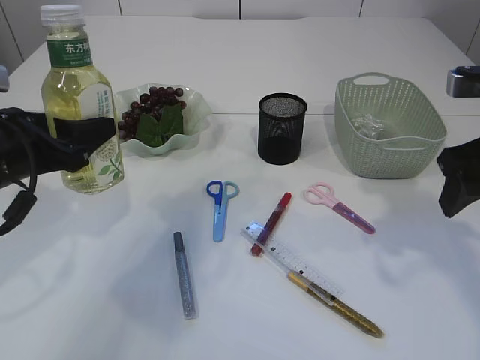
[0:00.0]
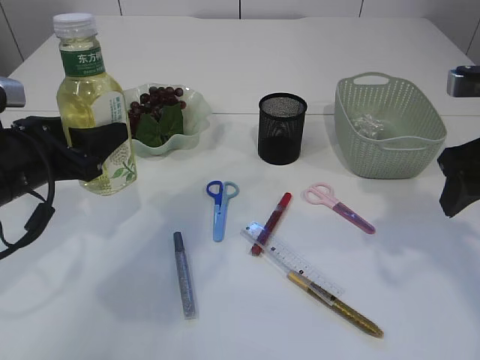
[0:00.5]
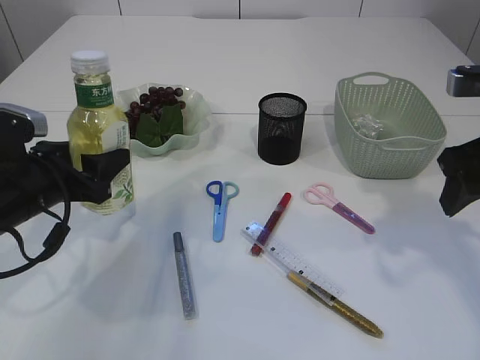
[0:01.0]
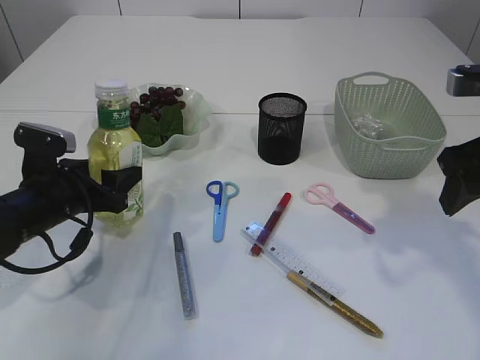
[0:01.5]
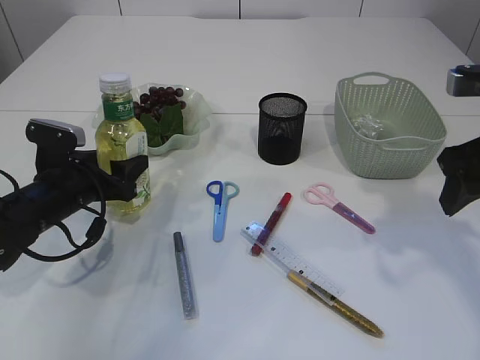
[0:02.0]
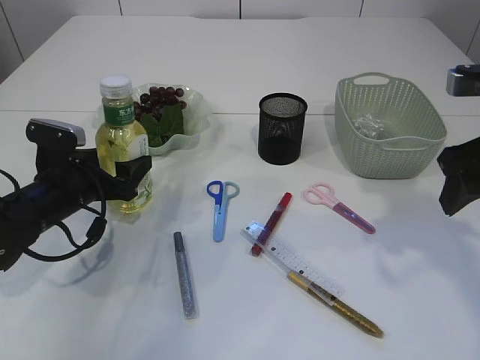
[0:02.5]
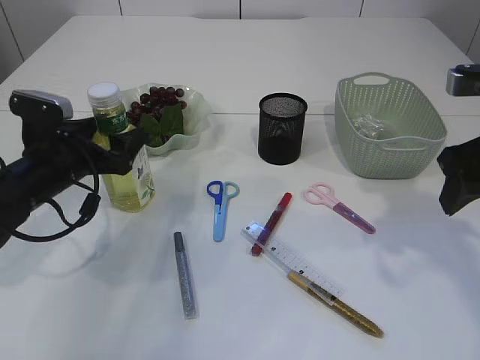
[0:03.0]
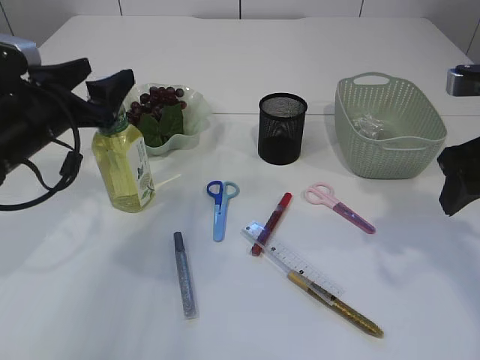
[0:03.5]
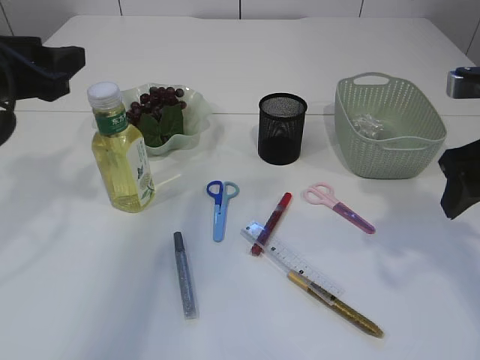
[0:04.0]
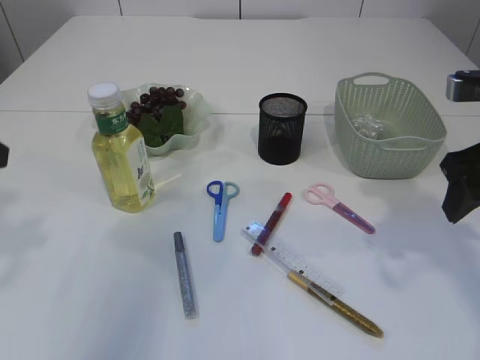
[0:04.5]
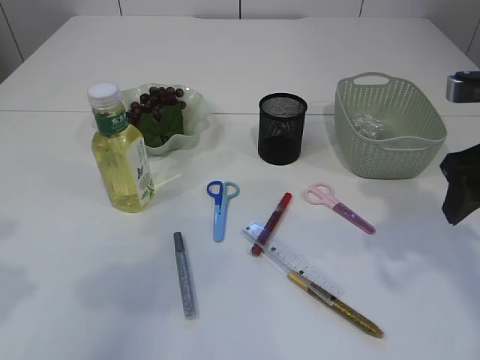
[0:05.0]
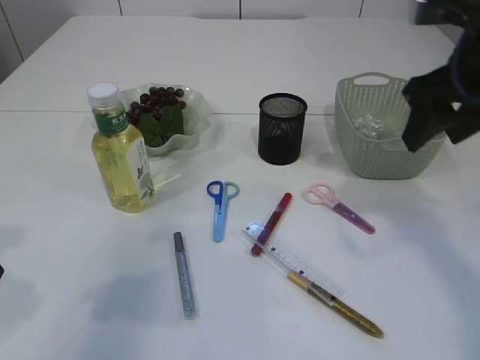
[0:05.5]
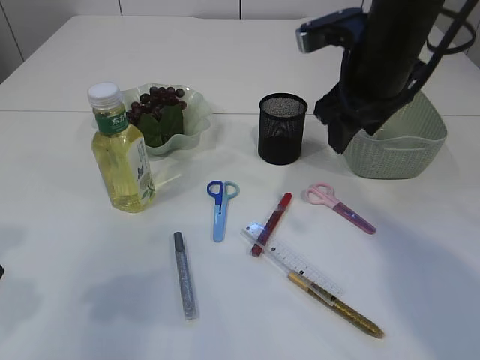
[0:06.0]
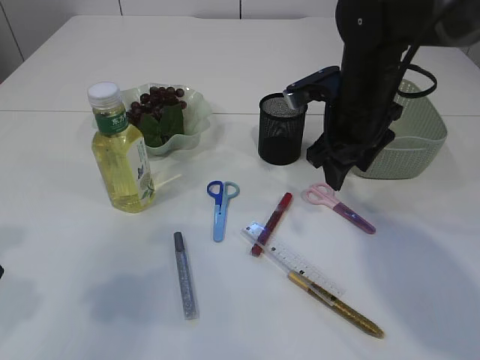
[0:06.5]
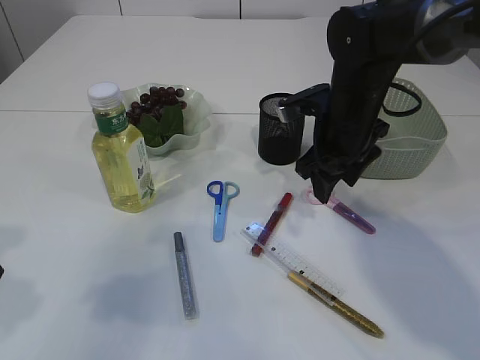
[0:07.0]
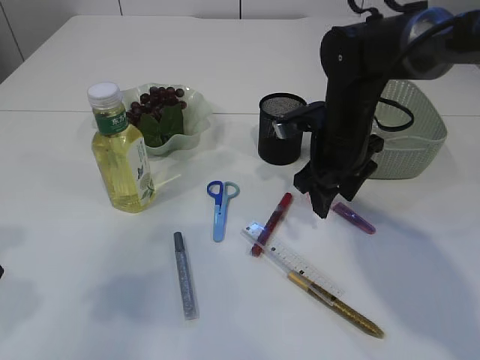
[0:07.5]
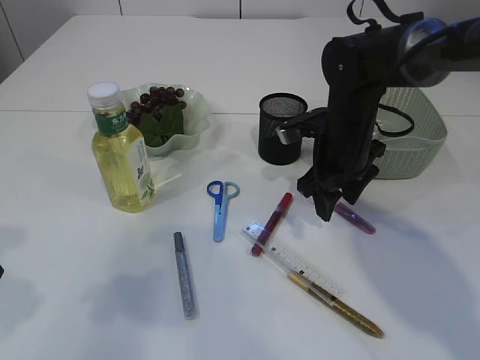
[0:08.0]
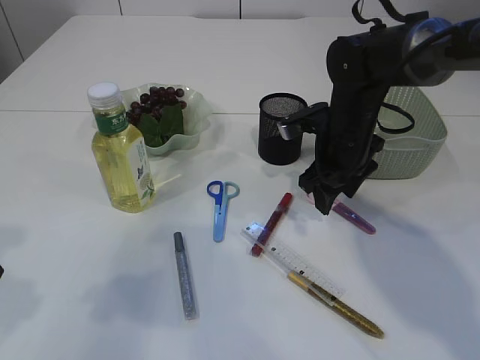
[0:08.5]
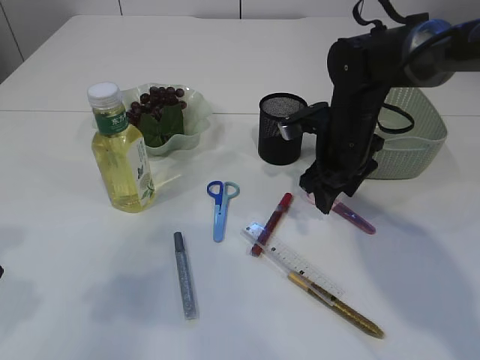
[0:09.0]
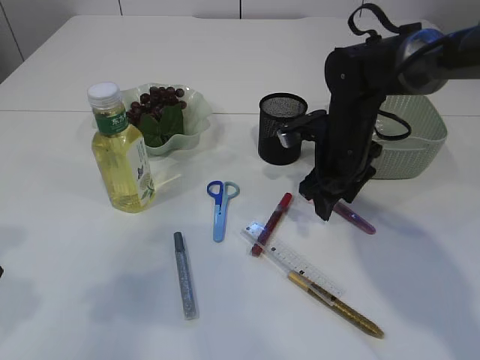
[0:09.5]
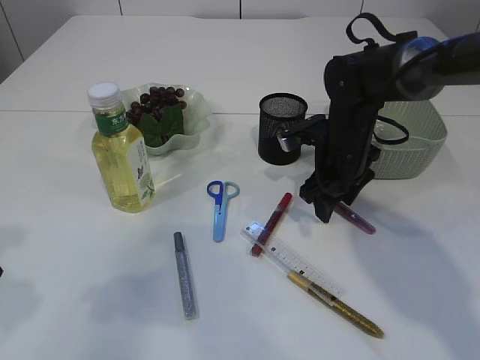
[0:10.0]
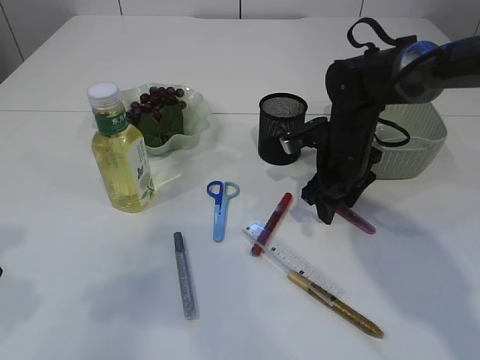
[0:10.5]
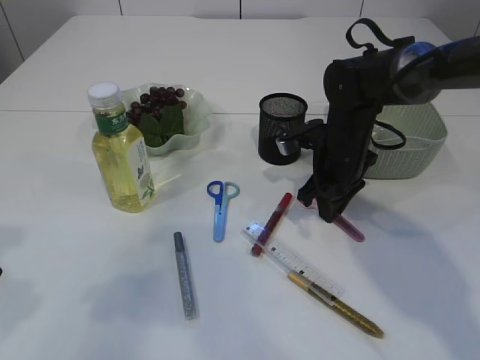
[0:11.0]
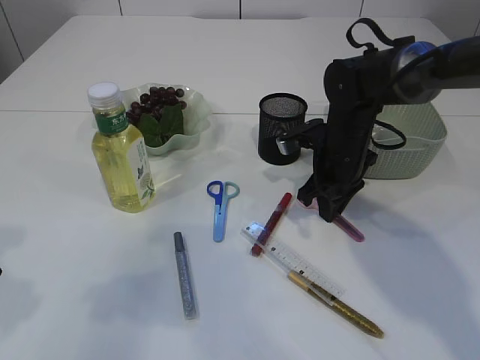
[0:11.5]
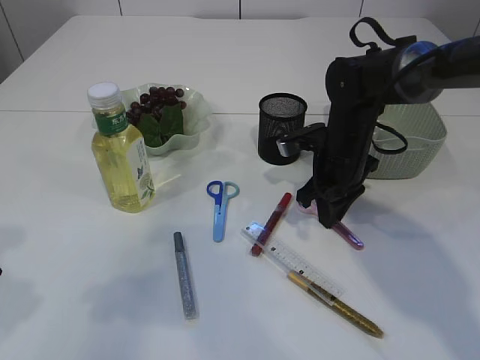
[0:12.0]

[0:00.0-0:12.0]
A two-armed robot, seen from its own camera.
Step, 0:00.0 to 0:03.5: Place the bottle.
0:00.0 to 0:02.0: The left gripper moves downward and forward, about 15 cm.
0:02.0 to 0:04.0: The left gripper travels upward by approximately 20 cm.
0:04.0 to 0:06.0: The right gripper is displaced to the left and forward by roughly 15 cm. The left gripper heads backward, covering some 10 cm.
0:06.0 to 0:08.0: The right gripper moves downward, some 15 cm.
0:08.0 to 0:10.0: There are only small adjustments of the grippers.
0:10.0 to 0:12.0: The right gripper closes up.

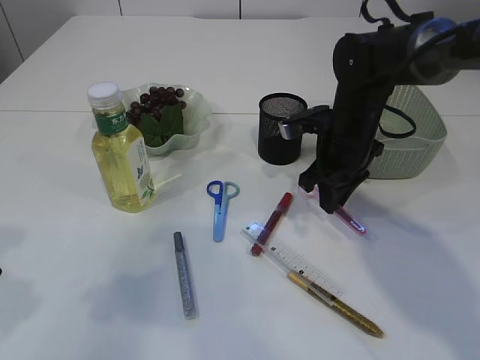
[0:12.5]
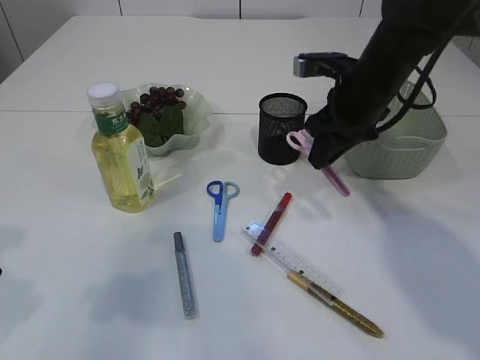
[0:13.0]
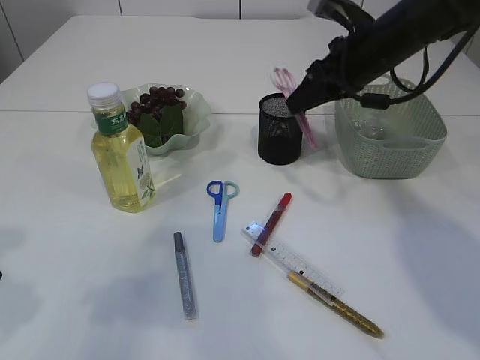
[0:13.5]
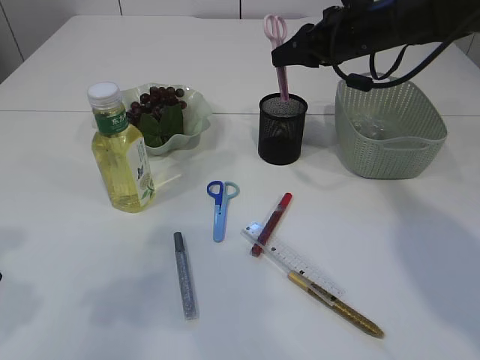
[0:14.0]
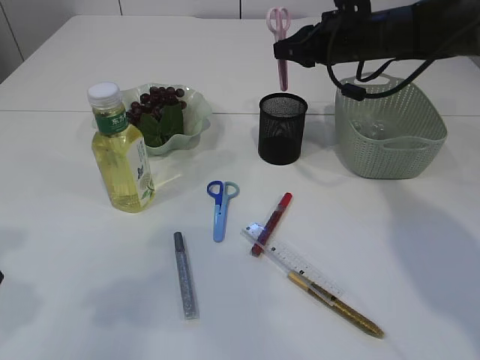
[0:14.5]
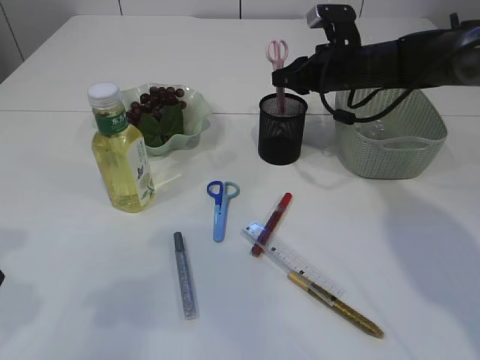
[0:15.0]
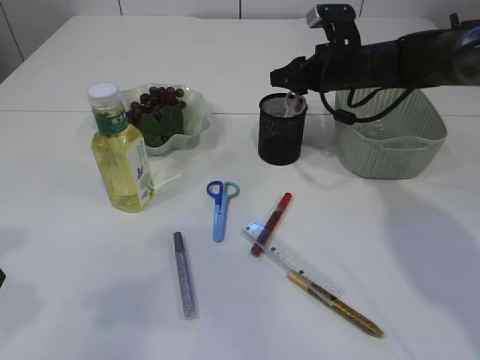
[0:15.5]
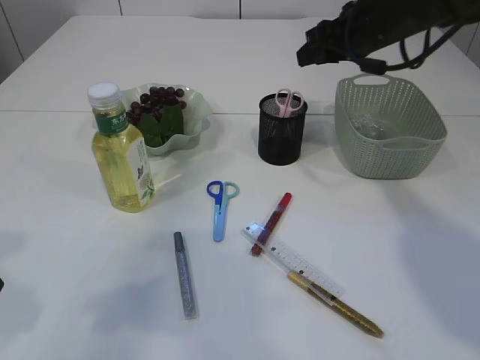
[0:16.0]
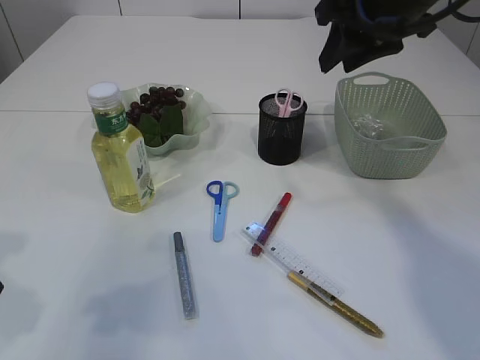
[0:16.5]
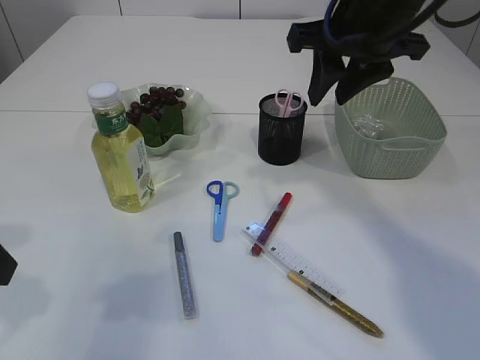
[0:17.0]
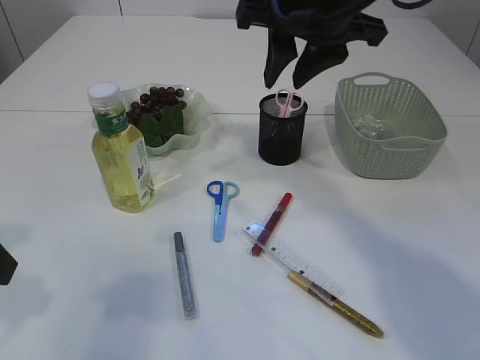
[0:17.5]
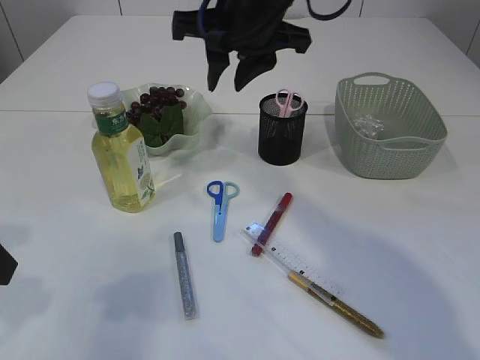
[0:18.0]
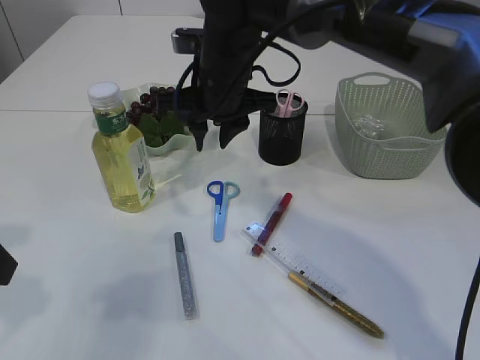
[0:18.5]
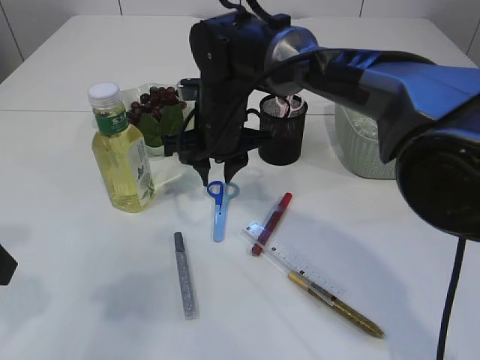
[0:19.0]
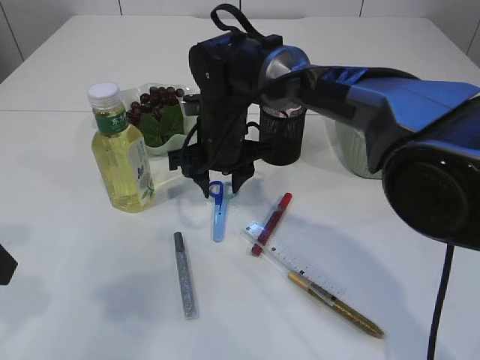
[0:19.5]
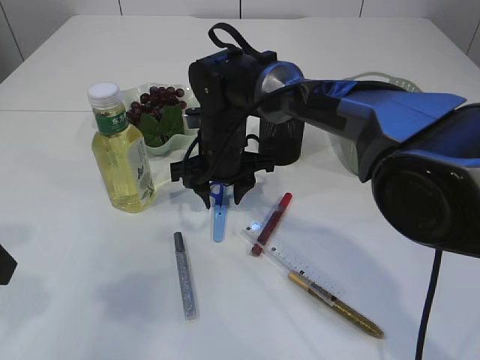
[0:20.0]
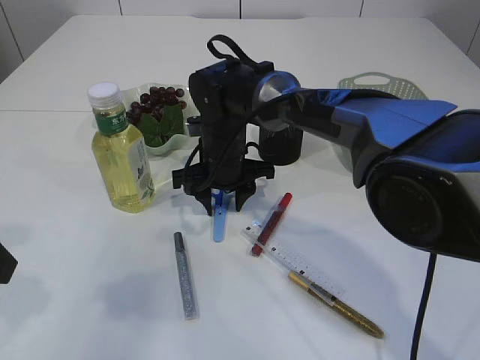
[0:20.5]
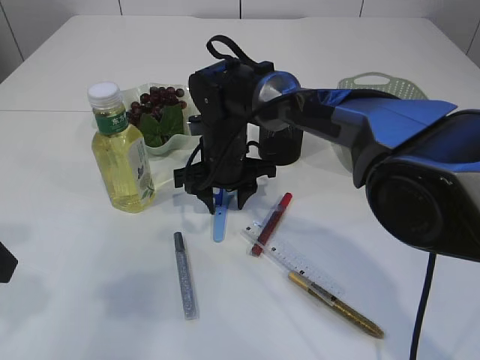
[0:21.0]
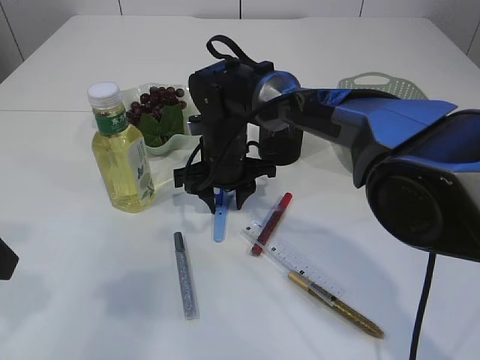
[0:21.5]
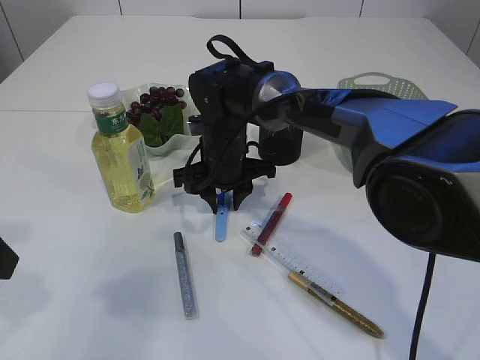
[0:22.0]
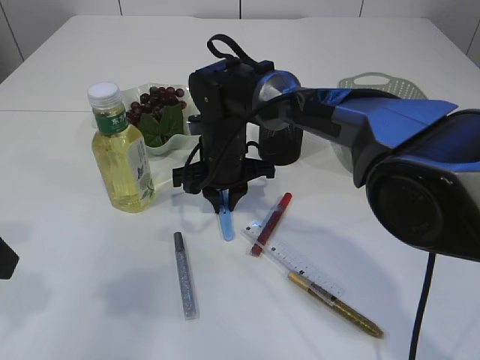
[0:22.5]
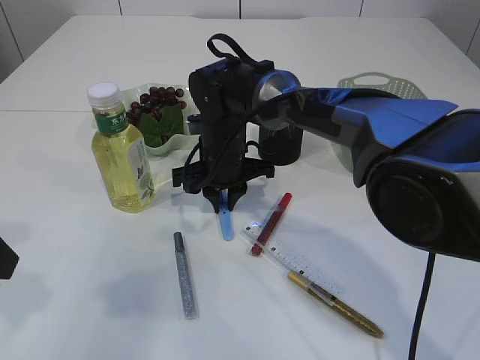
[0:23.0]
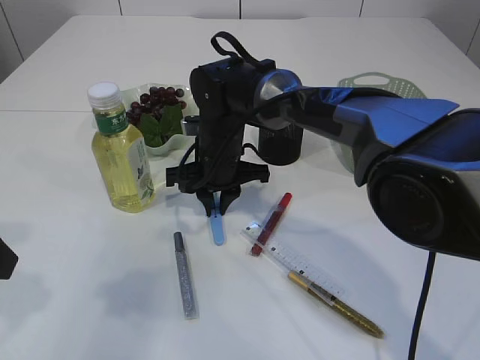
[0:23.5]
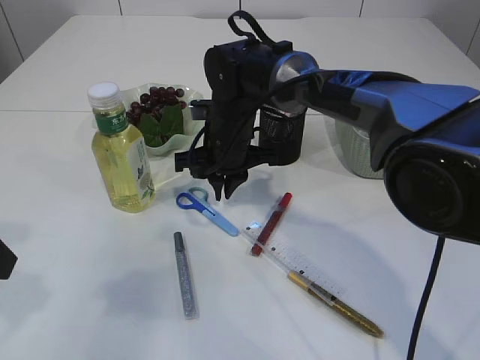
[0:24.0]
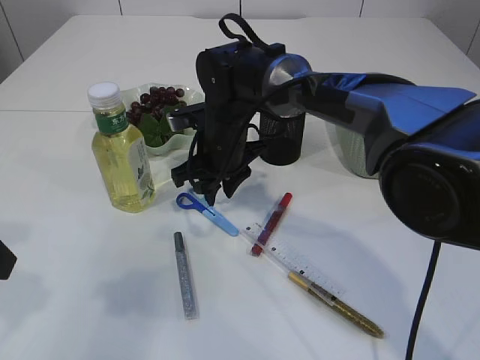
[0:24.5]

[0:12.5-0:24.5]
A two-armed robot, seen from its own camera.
Step, 0:13.0 to 0:15.5: Place the pink scissors into the pen holder.
0:12.5 to 0:14.5: The right gripper heads upward and forward, covering approximately 10 cm.
0:14.5 to 0:16.5: The right gripper shifts approximately 15 cm backward and upward.
0:16.5 to 0:18.5: The right gripper is displaced to the left and downward by some 20 cm.
0:18.5 to 0:20.5: The right gripper heads downward, covering some 10 cm.
0:20.5 to 0:22.5: The right gripper closes its fingers.

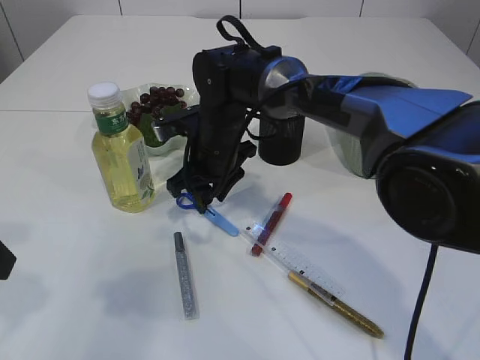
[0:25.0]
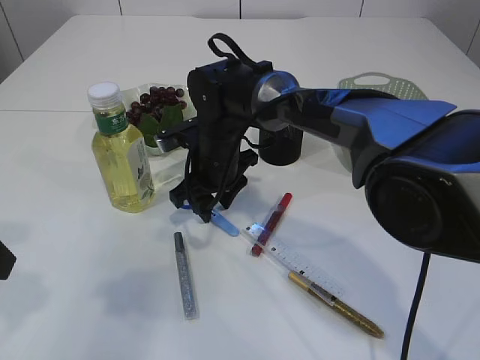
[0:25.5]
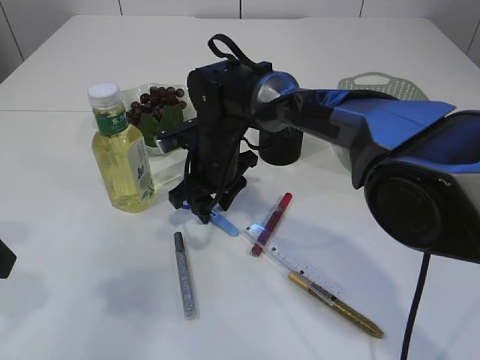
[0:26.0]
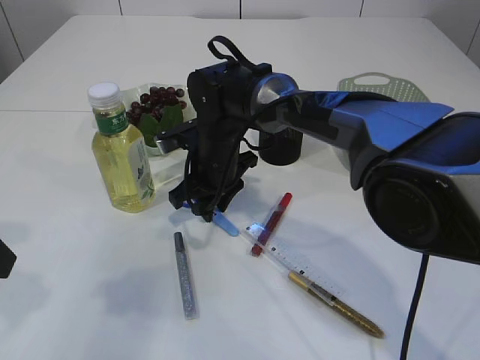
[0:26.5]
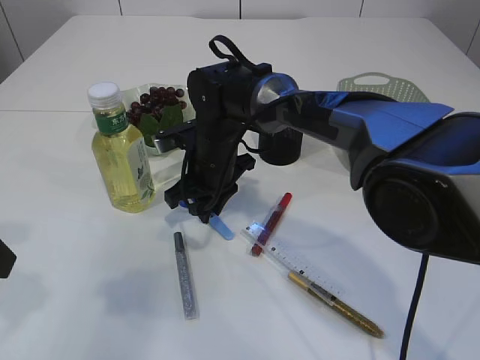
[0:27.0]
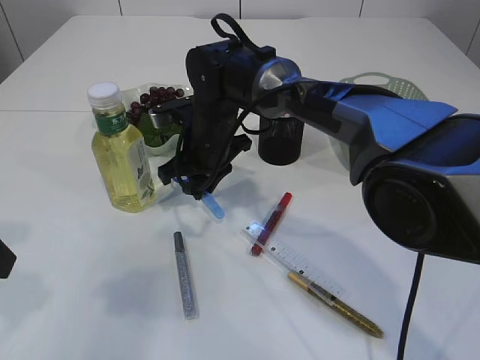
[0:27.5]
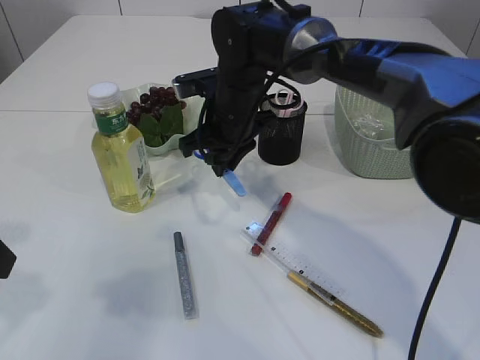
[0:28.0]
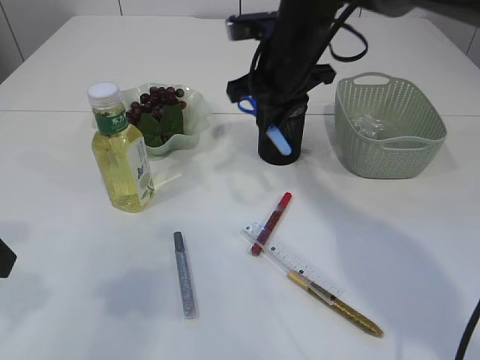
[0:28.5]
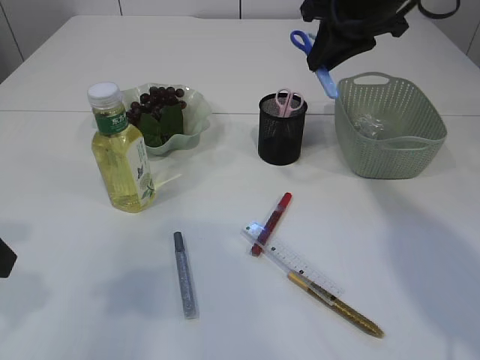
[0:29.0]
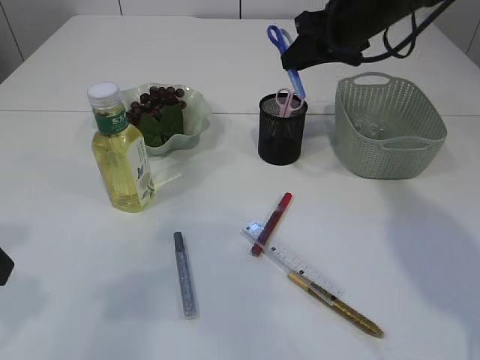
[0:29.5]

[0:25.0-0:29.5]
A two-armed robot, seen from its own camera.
Step, 0:25.0 to 0:28.0: pick up the blue scissors.
0:25.0 to 0:27.0: There are only small adjustments of the grippers.
0:27.0 to 0:29.5: The right gripper shifts approximately 25 cm to the right and upward.
